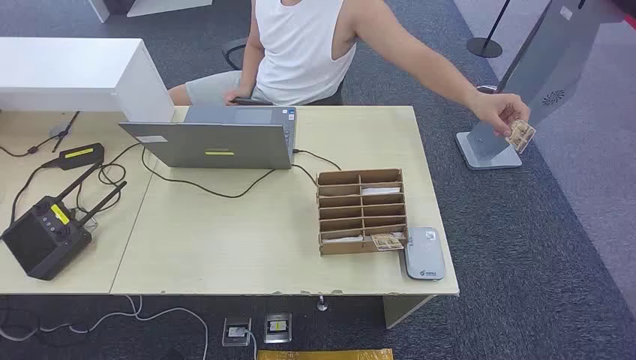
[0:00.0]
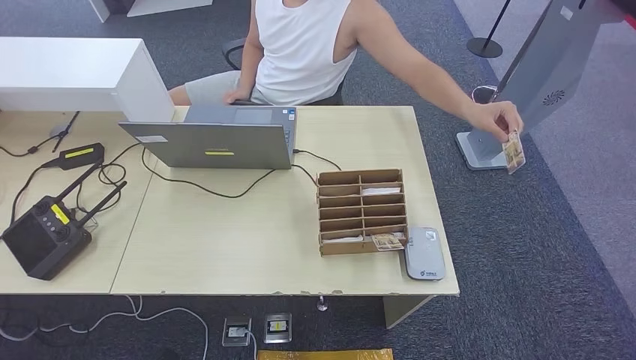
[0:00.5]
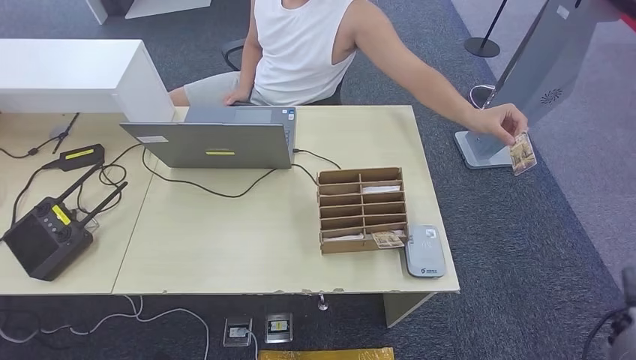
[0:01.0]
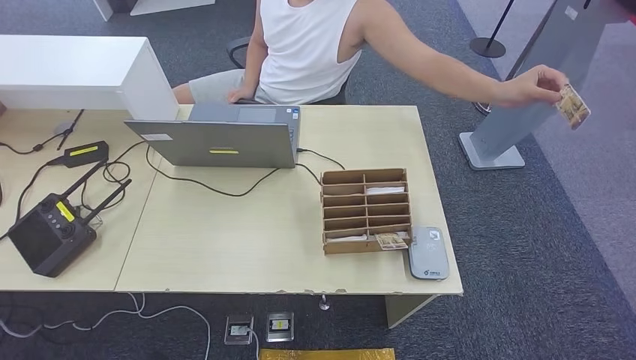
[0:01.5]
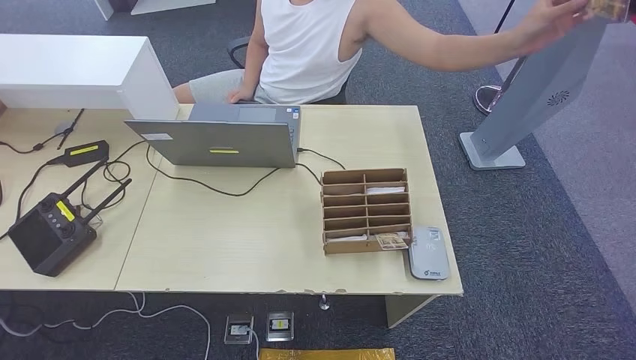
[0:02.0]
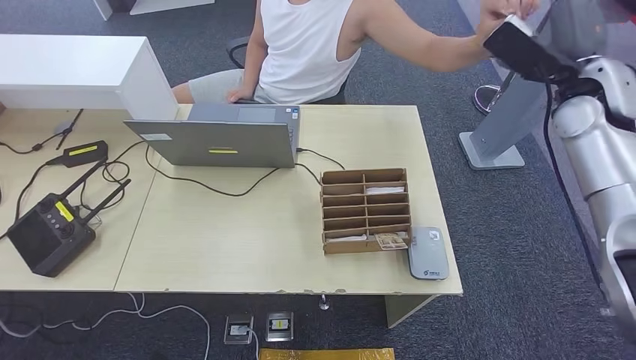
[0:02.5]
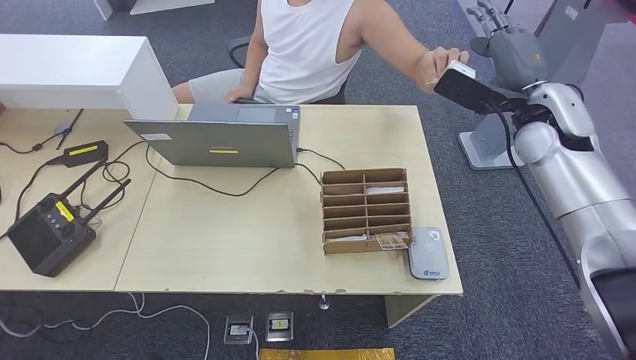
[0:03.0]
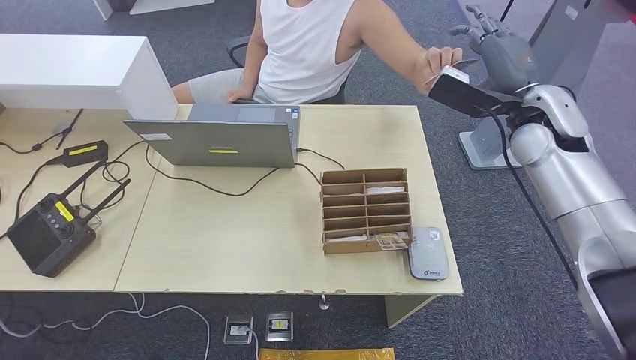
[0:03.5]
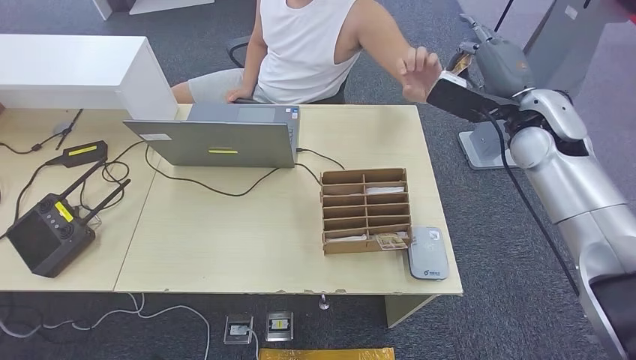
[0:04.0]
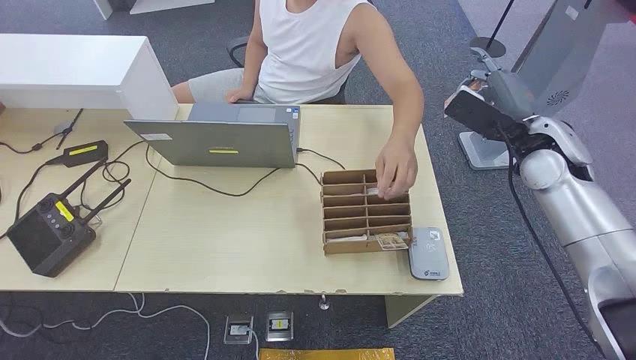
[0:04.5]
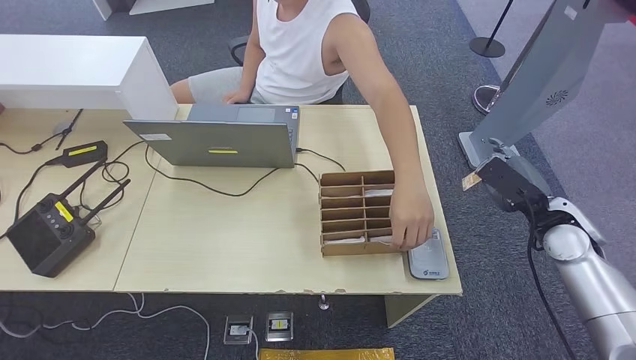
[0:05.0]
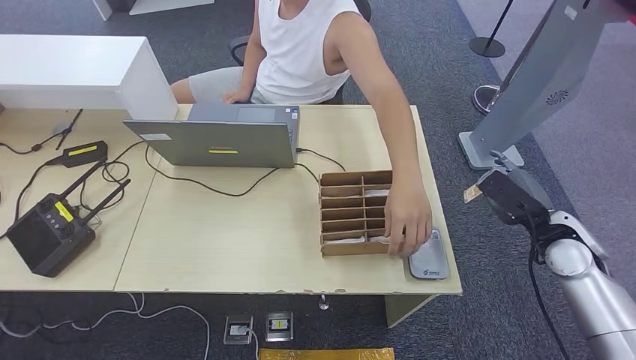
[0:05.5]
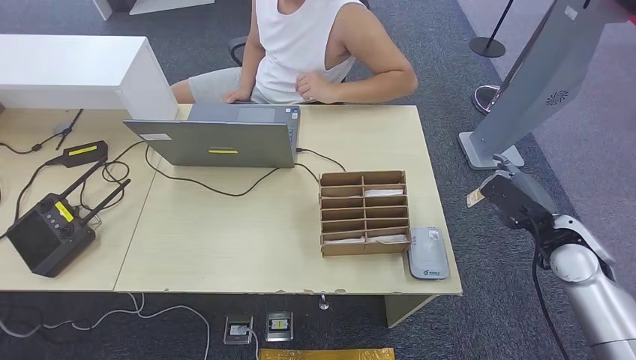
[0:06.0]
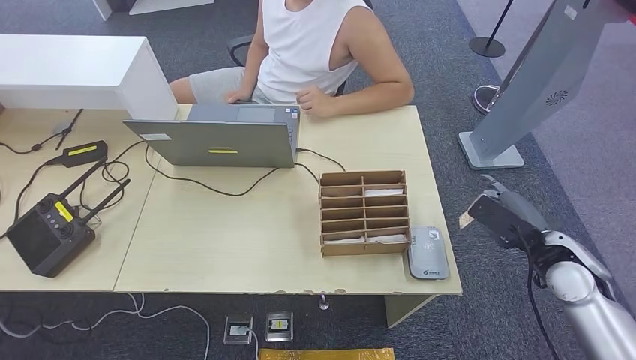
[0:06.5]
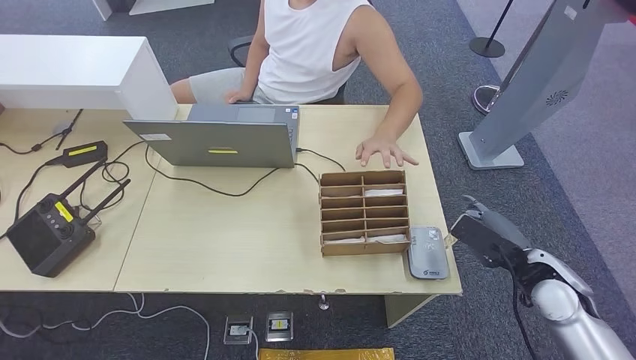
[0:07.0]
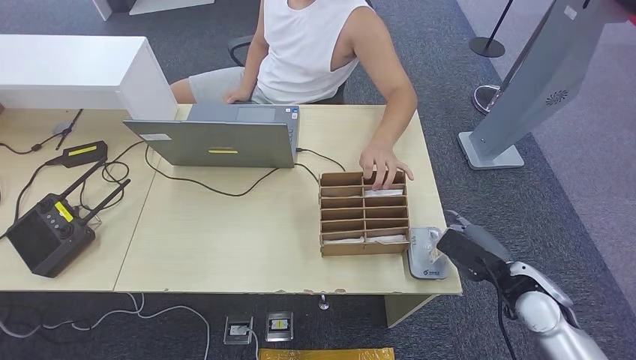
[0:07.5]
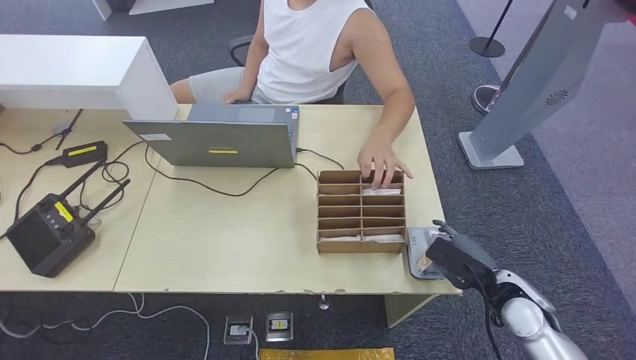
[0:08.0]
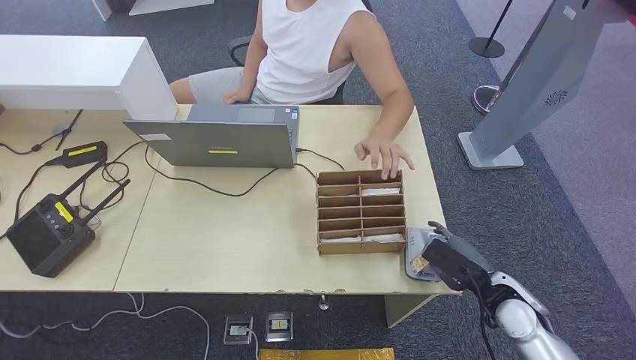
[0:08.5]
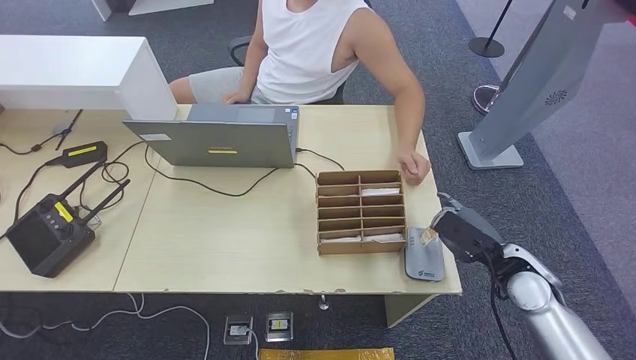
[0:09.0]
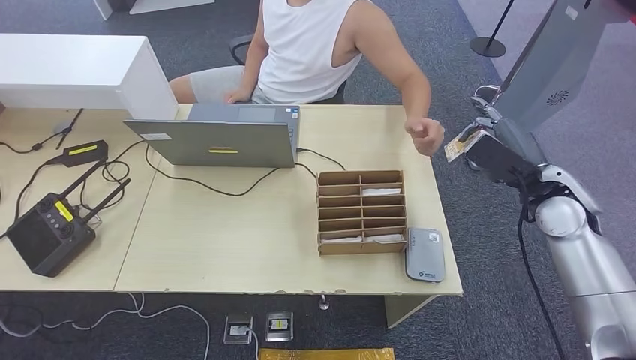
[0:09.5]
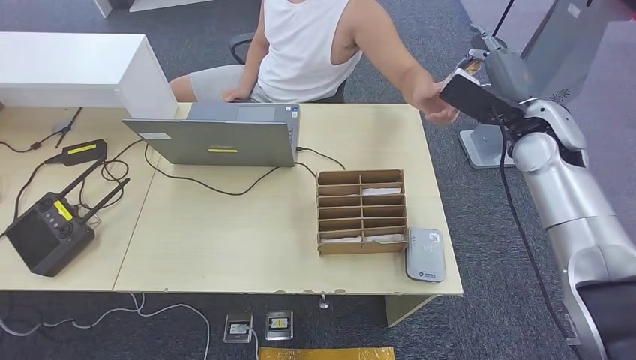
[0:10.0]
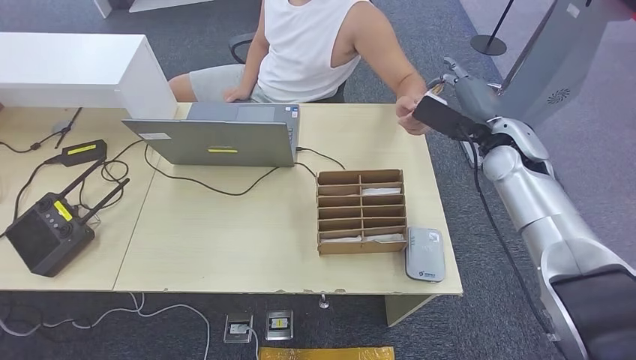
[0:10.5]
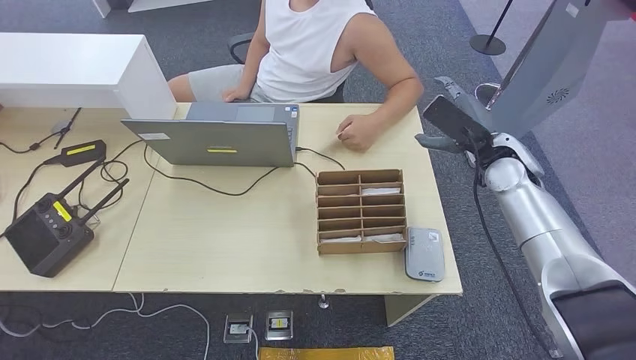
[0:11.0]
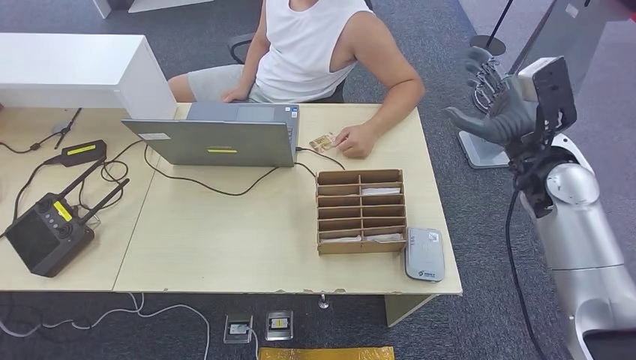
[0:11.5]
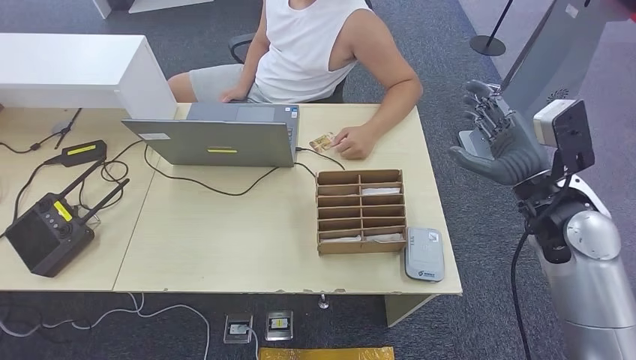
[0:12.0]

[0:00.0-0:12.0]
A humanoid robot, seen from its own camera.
Step, 0:00.0 to 0:02.5: Take the ID card from the person's hand.
Step, 0:03.5 to 0:07.5: Place the ID card on the card reader.
Step, 0:08.0 to 0:10.5: Hand the ID card to the person.
0:02.0 to 0:04.0: The right hand travels to the left and downward by some 20 cm.
0:04.0 to 0:06.0: The right hand goes some 20 cm downward, backward and to the right.
0:06.0 to 0:08.0: The right hand is displaced downward, to the left and backward by some 10 cm.
0:08.0 to 0:10.0: The right hand shifts about 25 cm upward and forward.
0:10.0 to 0:12.0: The right hand moves backward, some 10 cm.

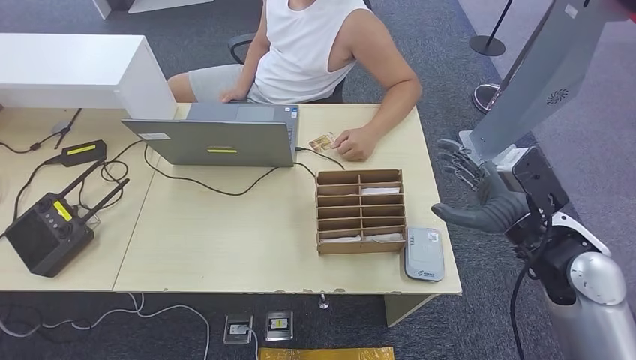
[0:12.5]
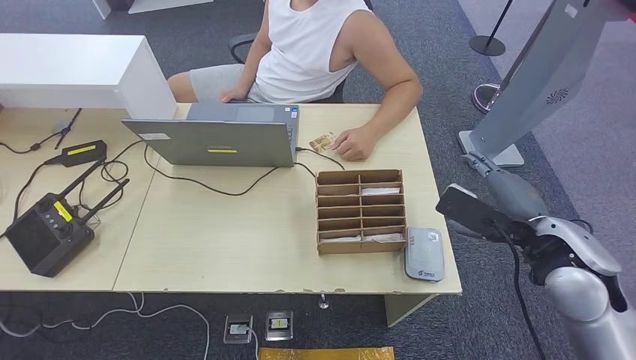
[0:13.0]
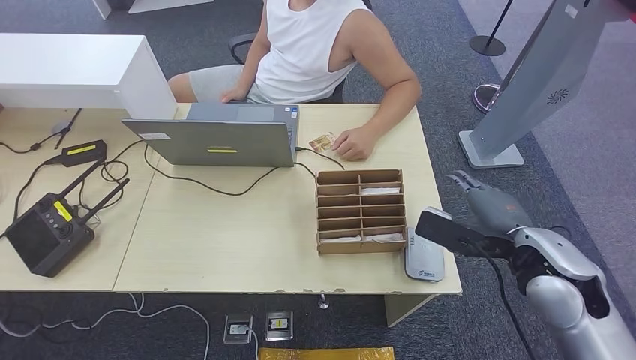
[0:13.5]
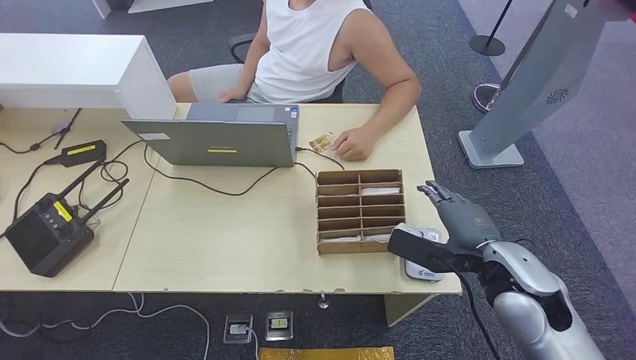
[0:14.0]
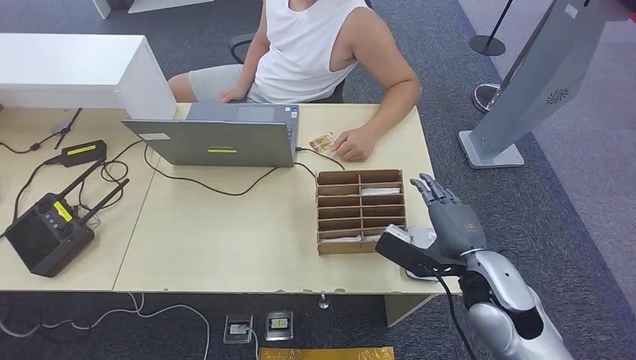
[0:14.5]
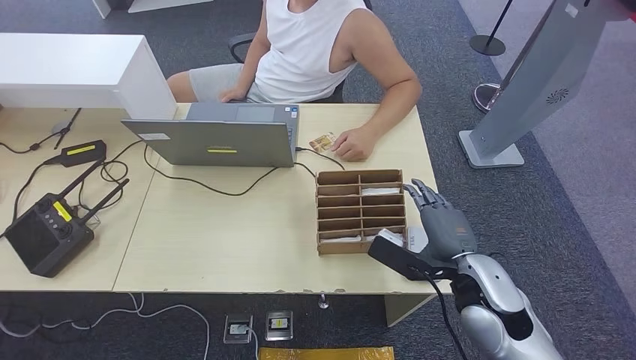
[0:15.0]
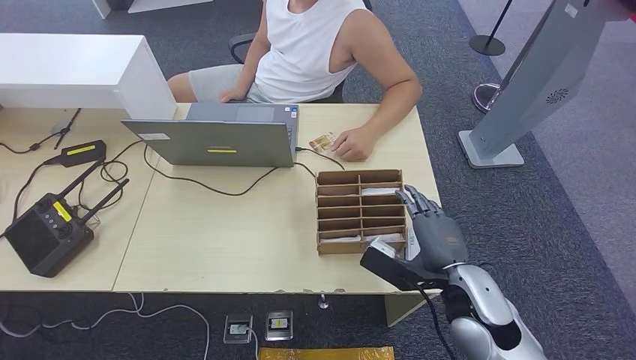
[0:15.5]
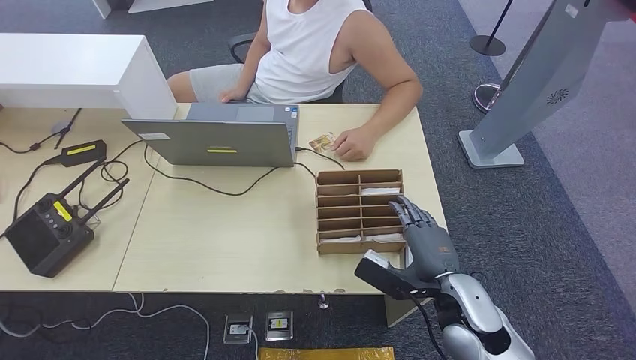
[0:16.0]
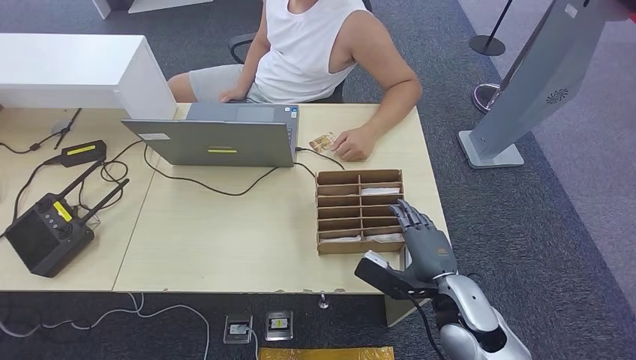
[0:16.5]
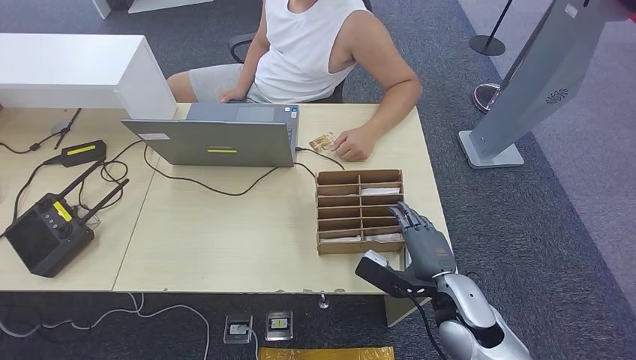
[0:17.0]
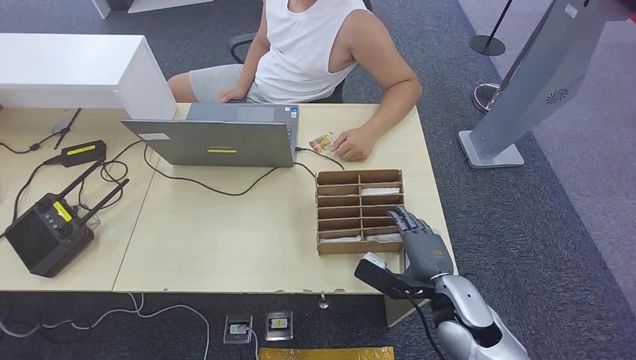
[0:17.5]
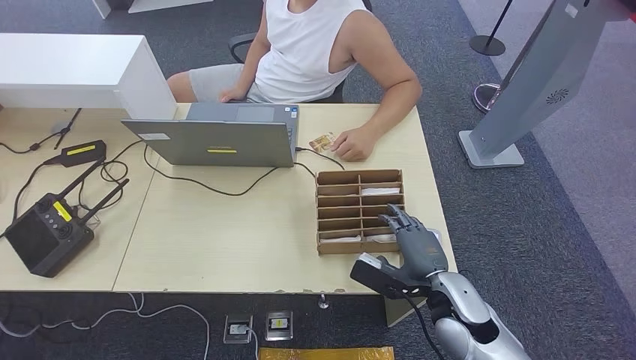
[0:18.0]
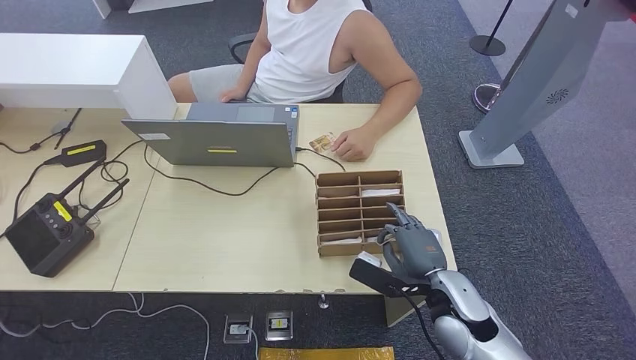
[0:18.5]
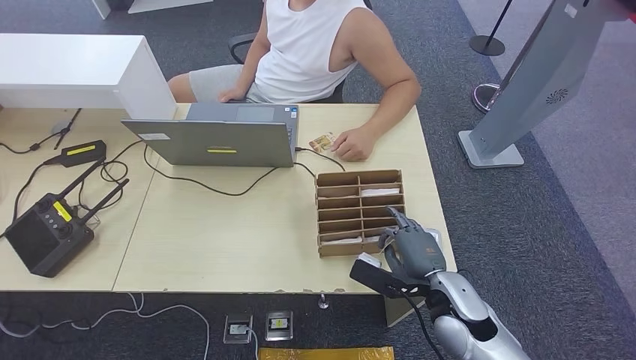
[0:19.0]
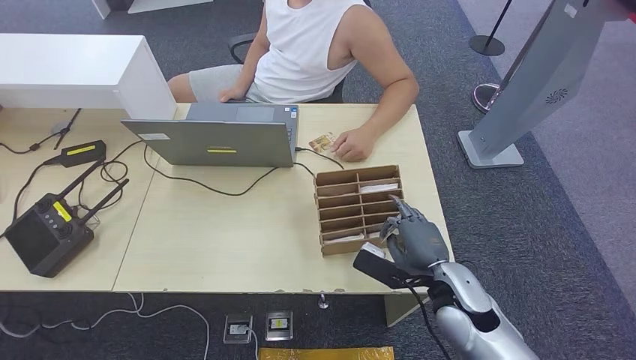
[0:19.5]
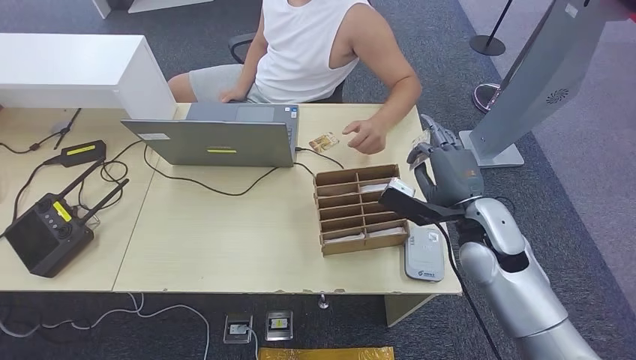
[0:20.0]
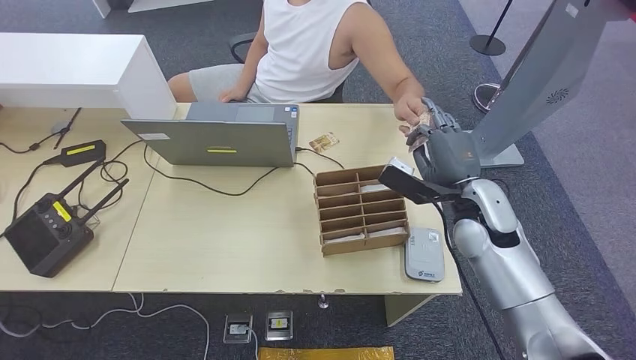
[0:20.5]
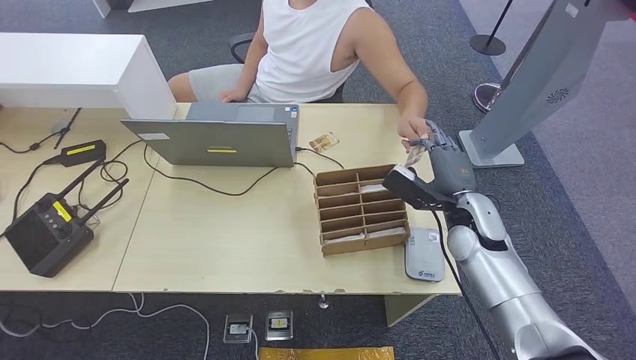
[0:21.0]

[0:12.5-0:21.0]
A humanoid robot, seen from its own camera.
Step, 0:12.5 to 0:19.5: Pick up the room key from the key card box.
Step, 0:20.0 to 0:21.0: Hand the room key to the person.
0:12.5 to 0:14.5: The right hand is displaced to the left and downward by roughly 10 cm.
0:14.5 to 0:16.5: The right hand travels downward by approximately 5 cm.
0:16.5 to 0:19.0: There are only small adjustments of the hands.
0:19.0 to 0:21.0: The right hand travels forward, upward and to the right by some 15 cm.
